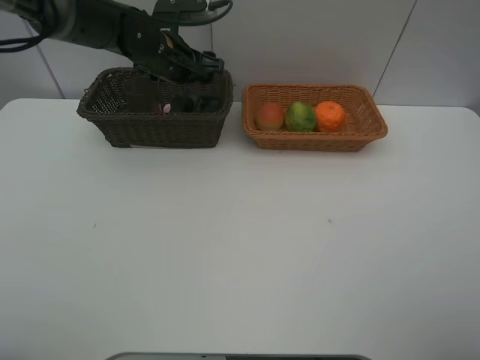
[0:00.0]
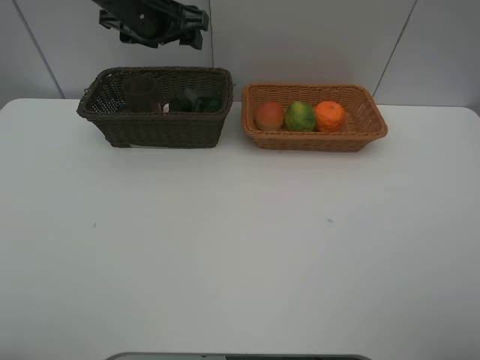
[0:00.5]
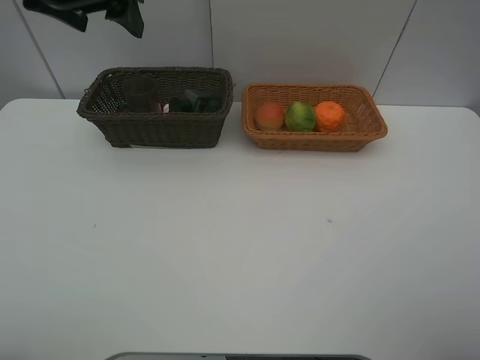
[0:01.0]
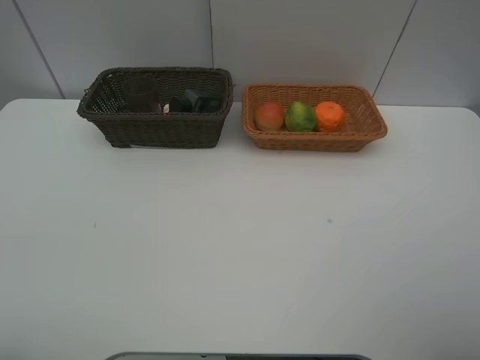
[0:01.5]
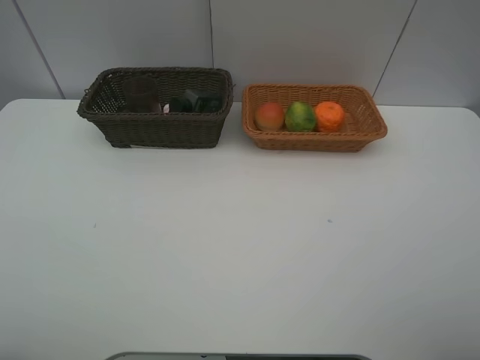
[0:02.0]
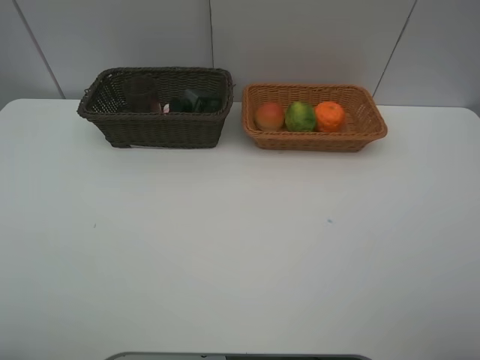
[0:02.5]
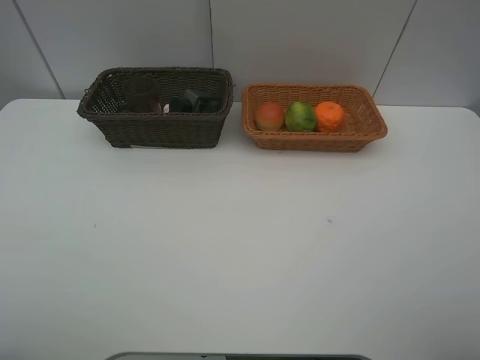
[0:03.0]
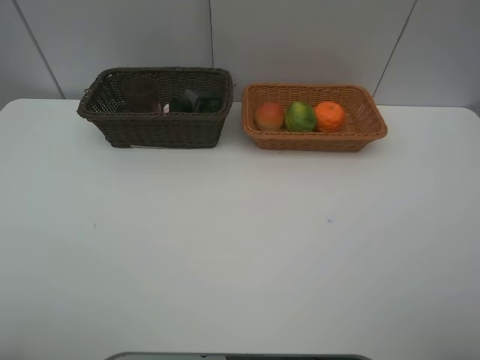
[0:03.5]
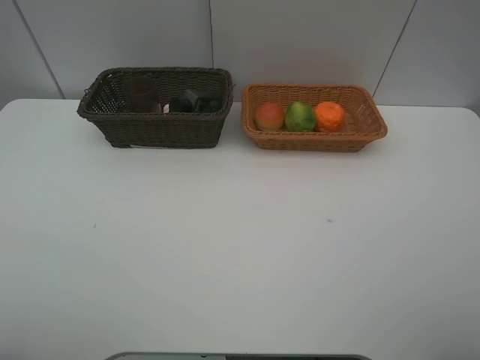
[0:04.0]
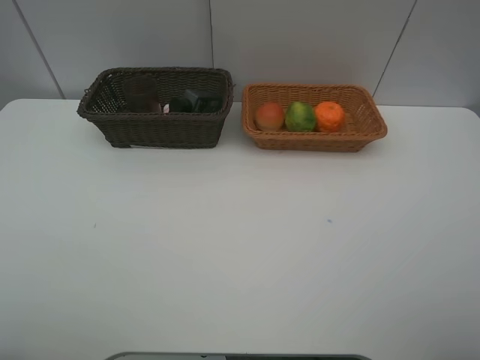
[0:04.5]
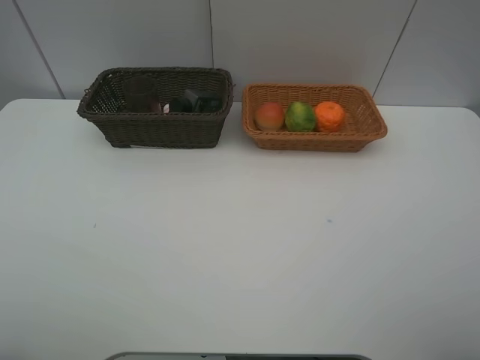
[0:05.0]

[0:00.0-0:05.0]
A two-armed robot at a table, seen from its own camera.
Task of the whole recording: place multiple objects separately in different baskets.
0:00.0 to 0:02.5: The left gripper shifts about 50 cm backward and to the left.
